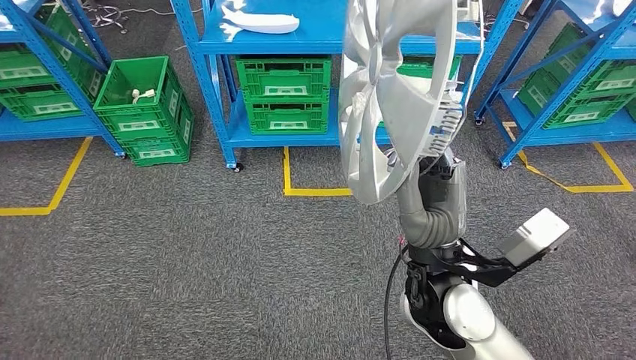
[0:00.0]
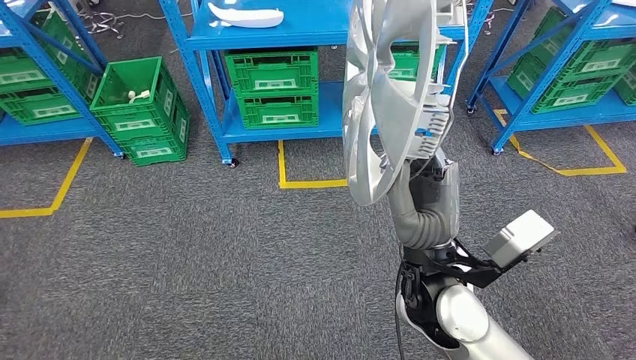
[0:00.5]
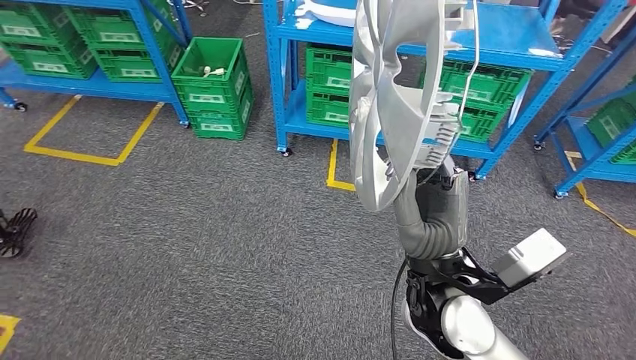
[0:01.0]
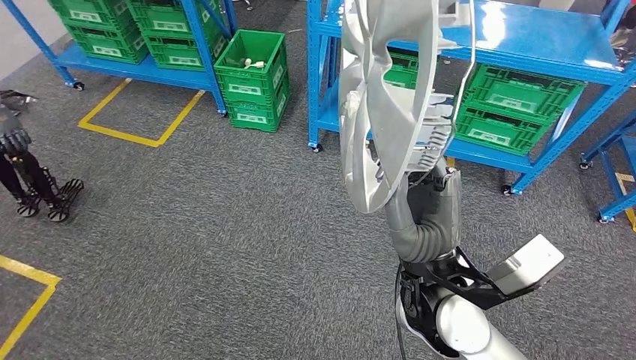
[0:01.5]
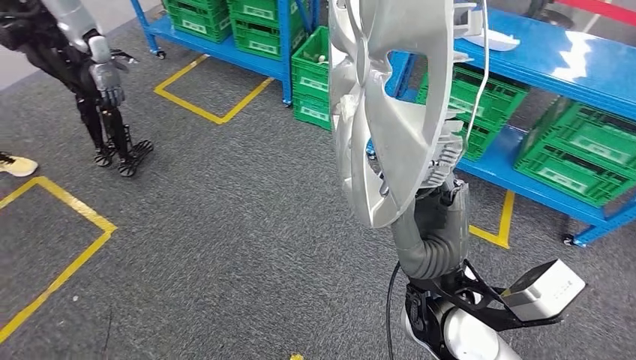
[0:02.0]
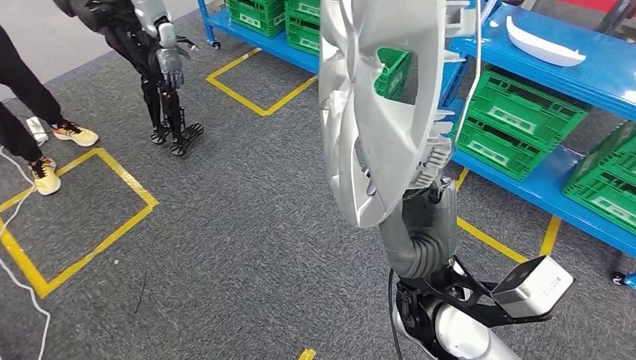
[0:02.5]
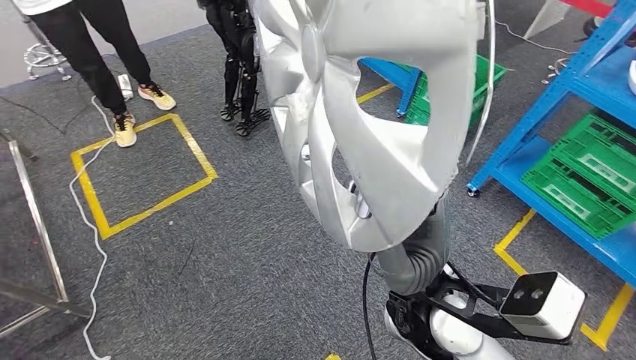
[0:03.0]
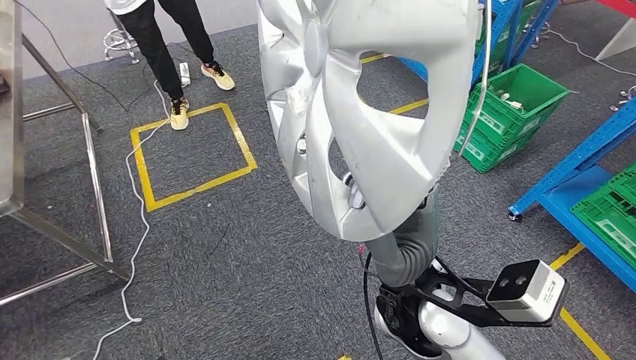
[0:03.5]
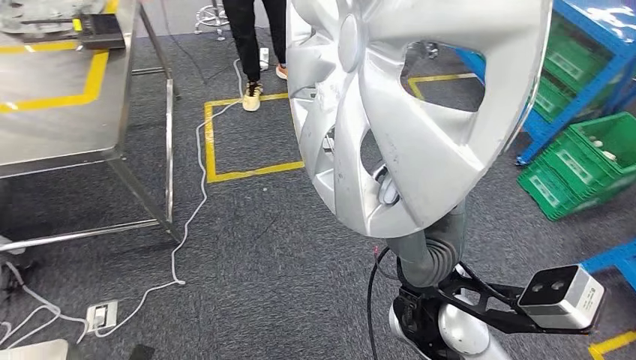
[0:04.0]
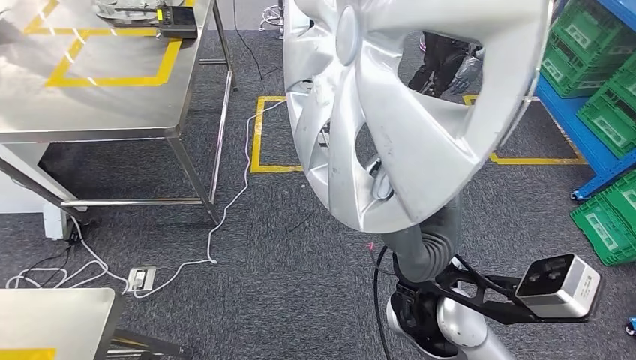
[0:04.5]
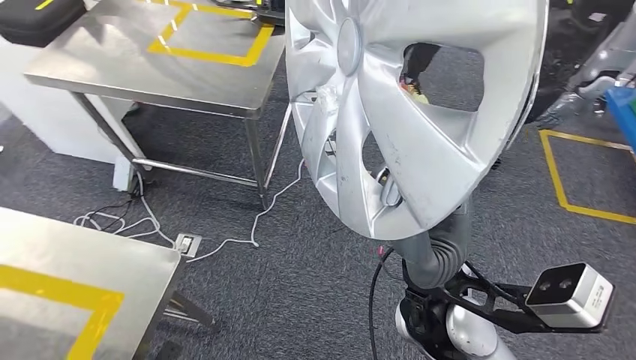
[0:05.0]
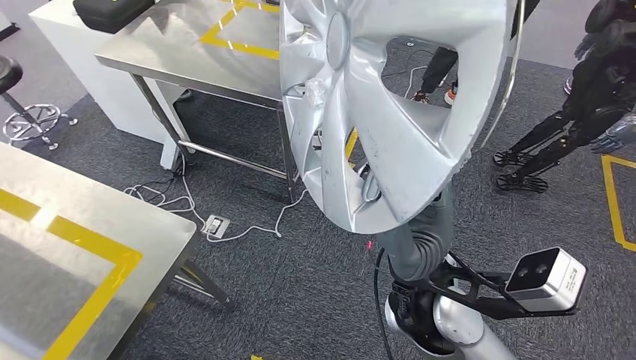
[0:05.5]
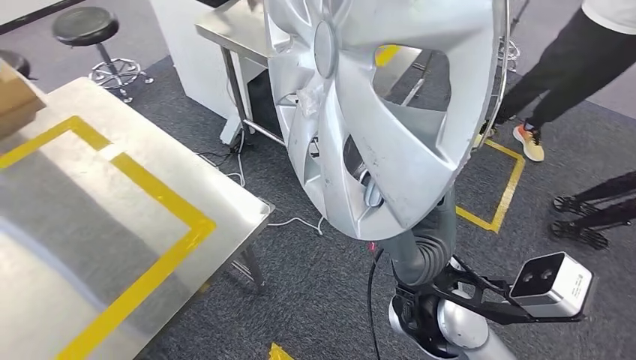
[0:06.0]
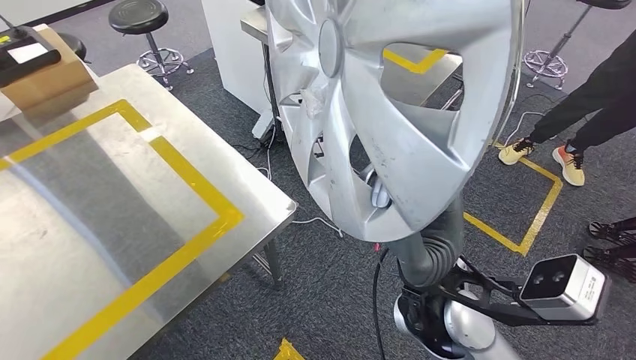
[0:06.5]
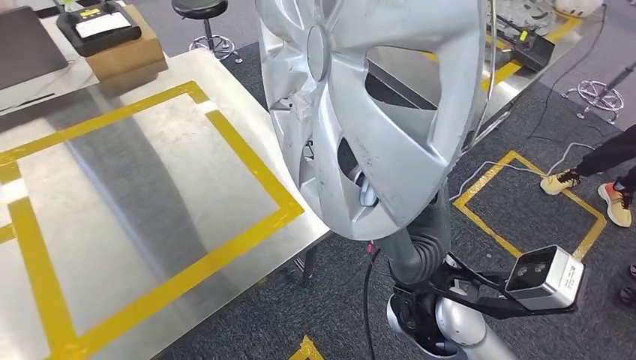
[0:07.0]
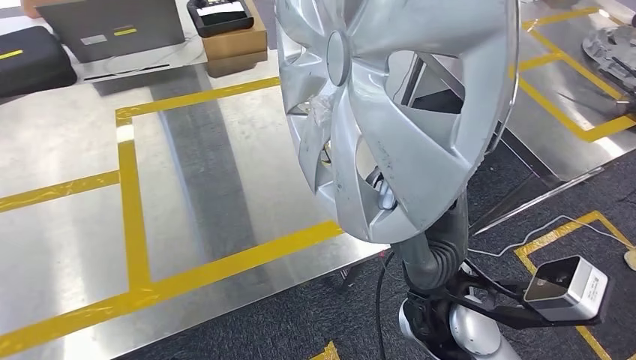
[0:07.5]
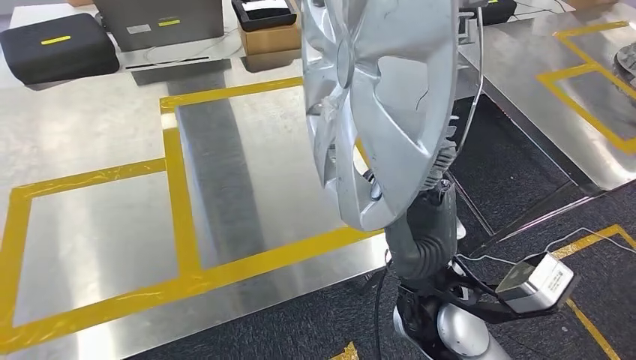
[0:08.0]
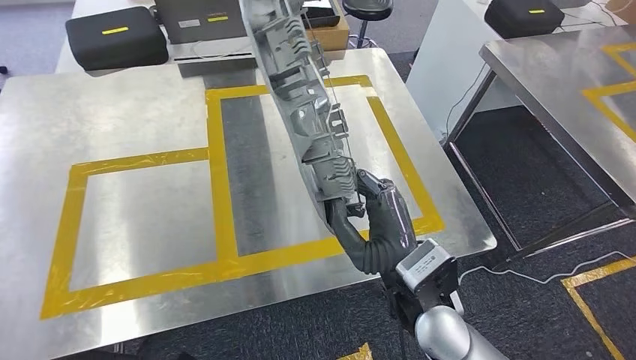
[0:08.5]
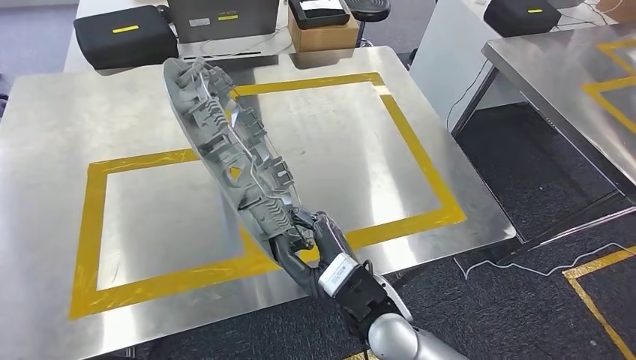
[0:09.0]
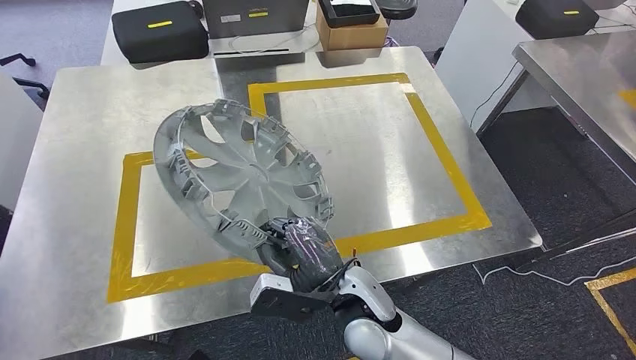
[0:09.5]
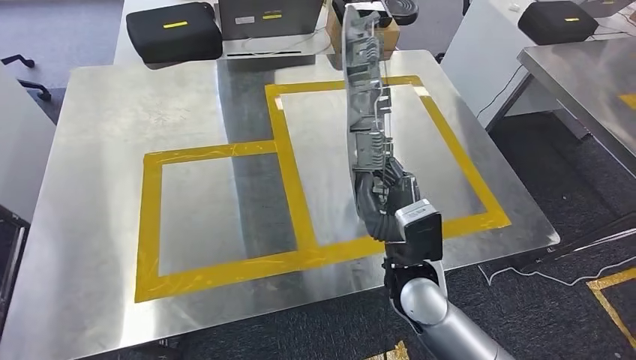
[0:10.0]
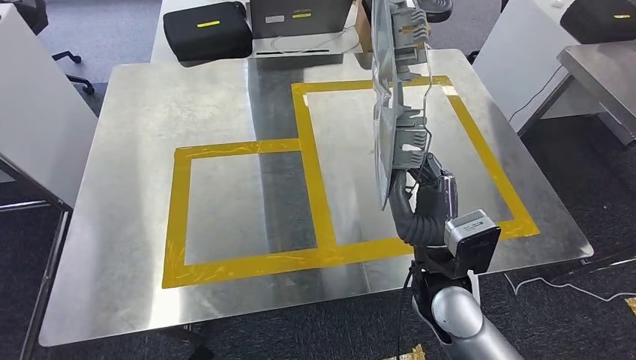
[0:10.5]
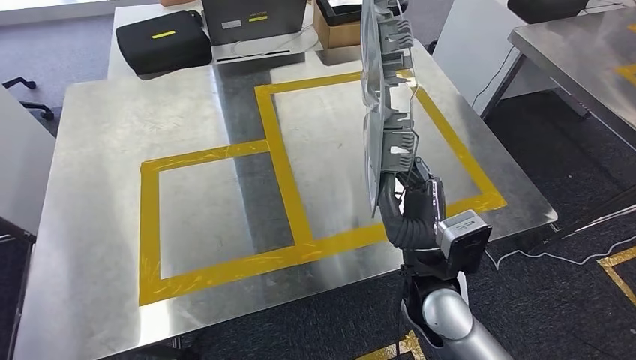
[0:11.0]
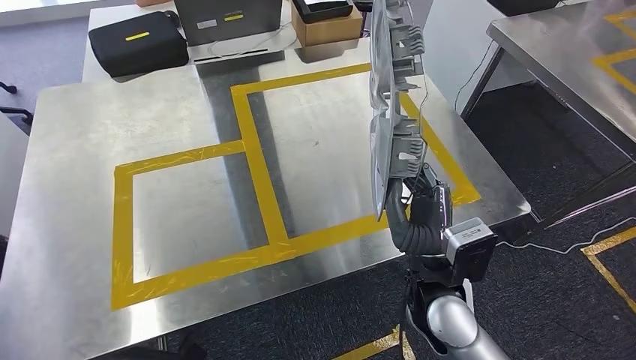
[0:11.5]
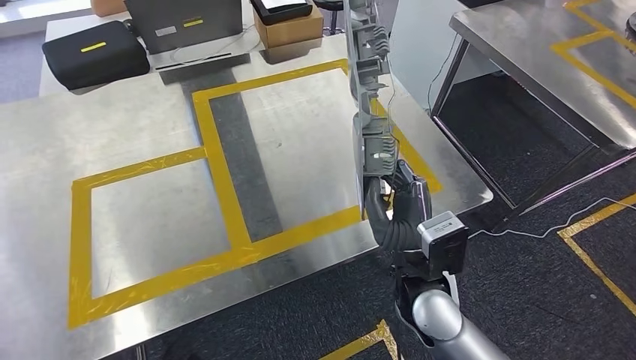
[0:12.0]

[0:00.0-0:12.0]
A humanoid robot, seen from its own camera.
Step, 0:00.0 to 0:02.5: Pick up the small component from the shelf.
Step, 0:03.5 to 0:10.0: Move the small component to the workbench.

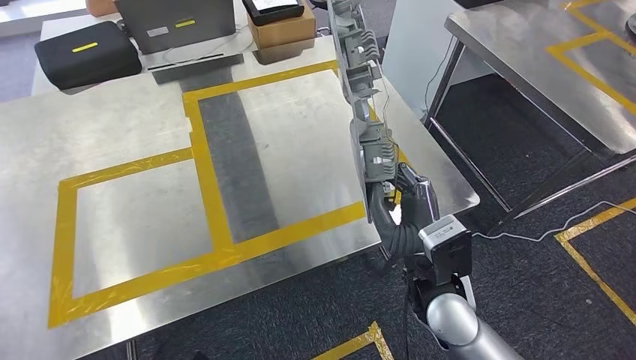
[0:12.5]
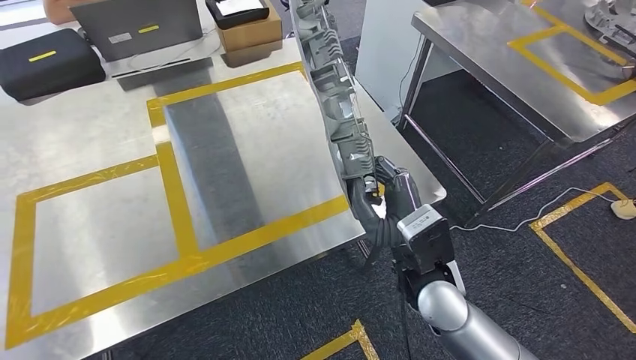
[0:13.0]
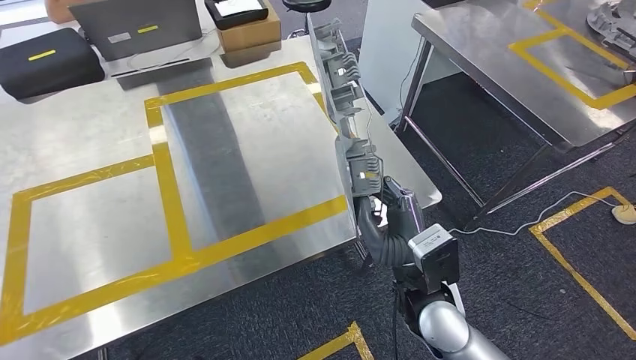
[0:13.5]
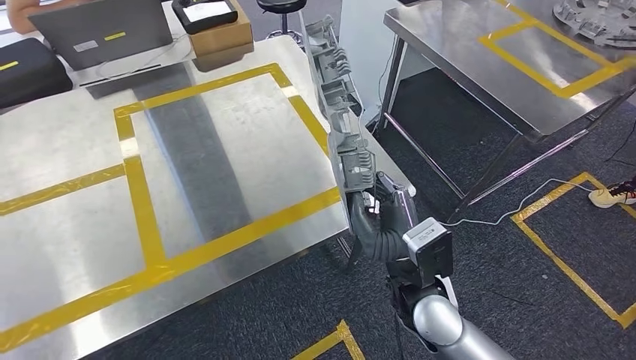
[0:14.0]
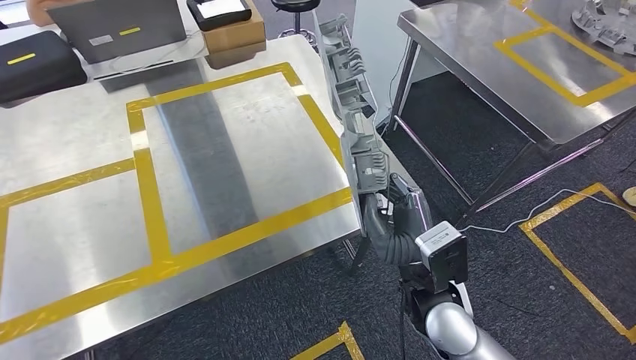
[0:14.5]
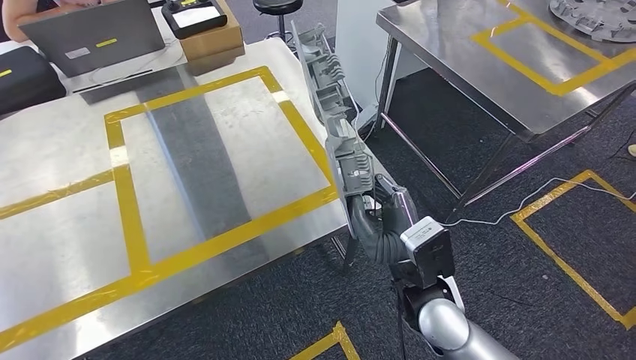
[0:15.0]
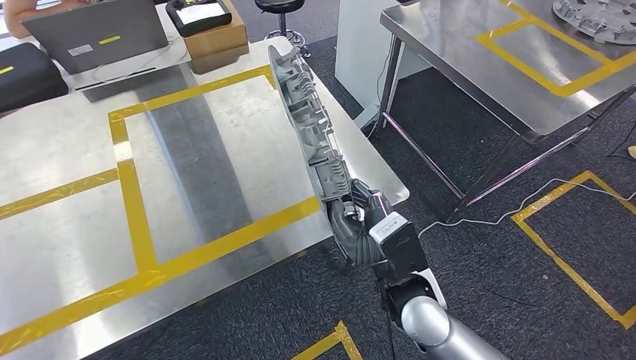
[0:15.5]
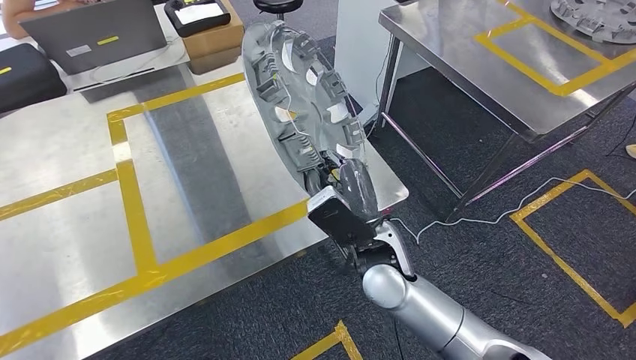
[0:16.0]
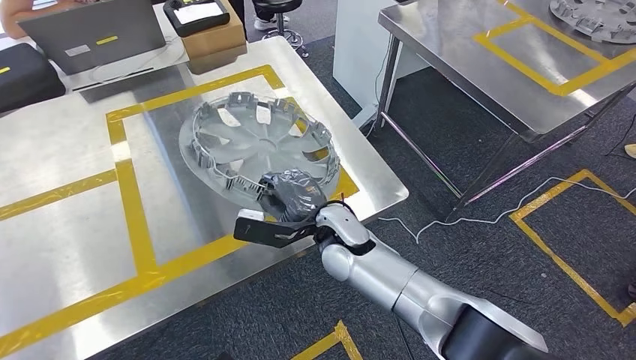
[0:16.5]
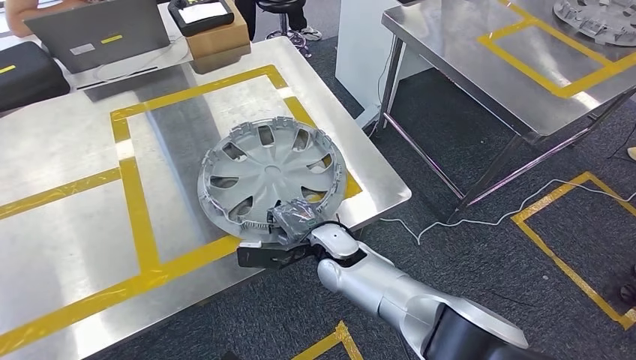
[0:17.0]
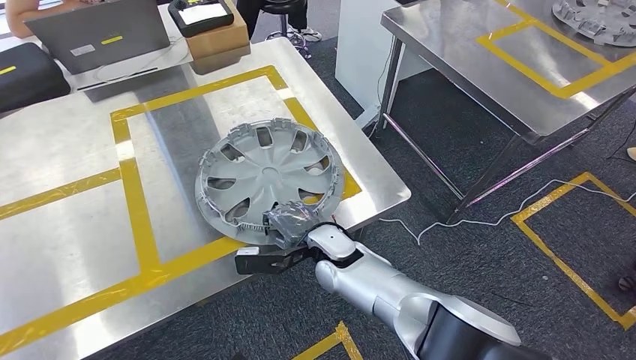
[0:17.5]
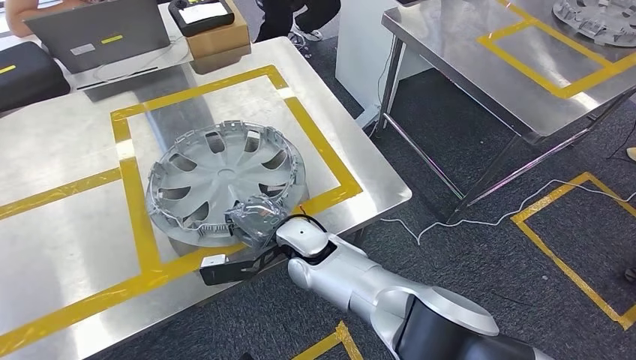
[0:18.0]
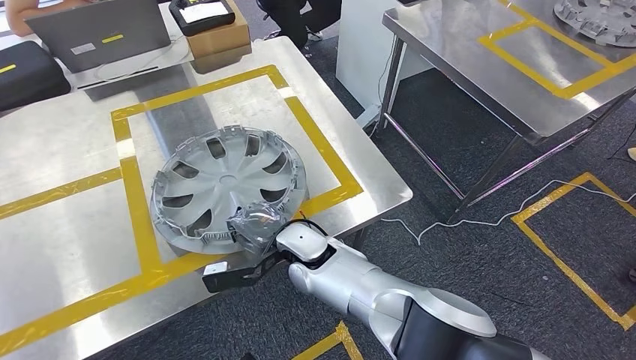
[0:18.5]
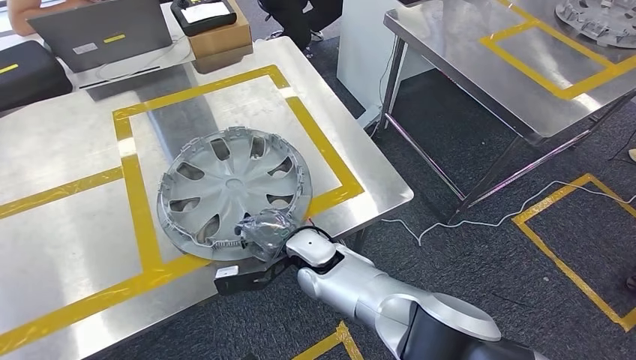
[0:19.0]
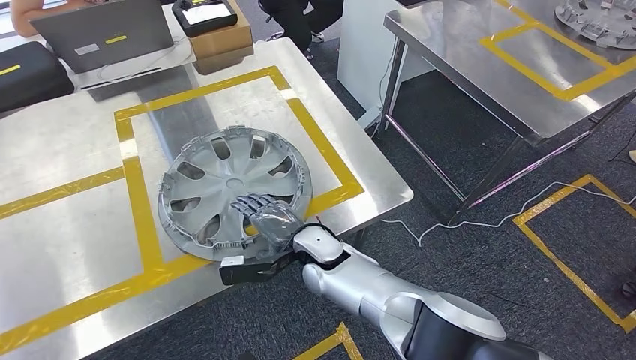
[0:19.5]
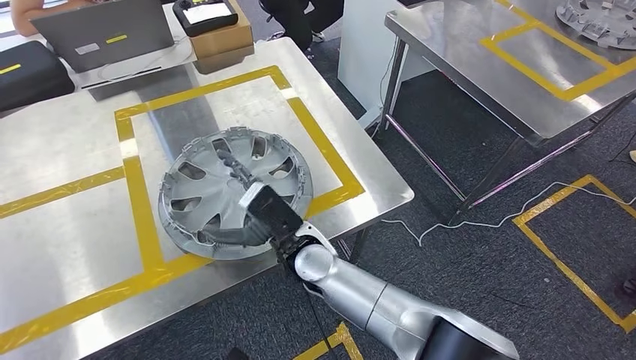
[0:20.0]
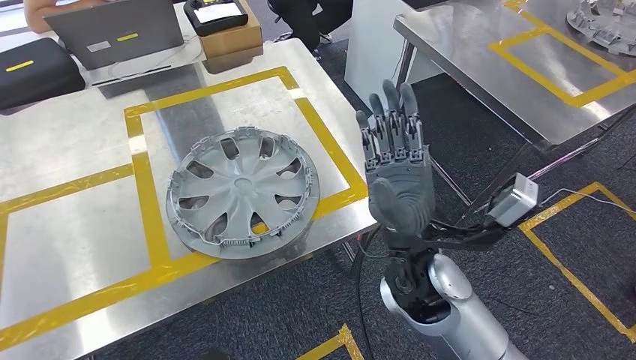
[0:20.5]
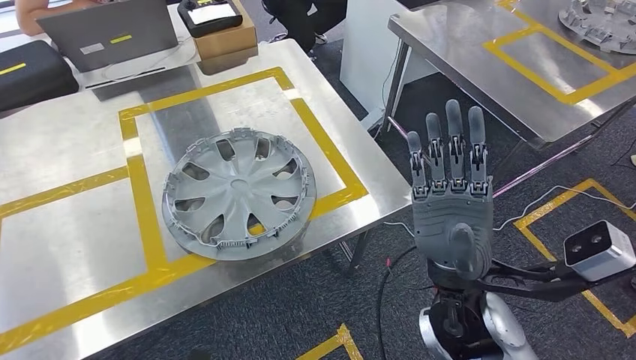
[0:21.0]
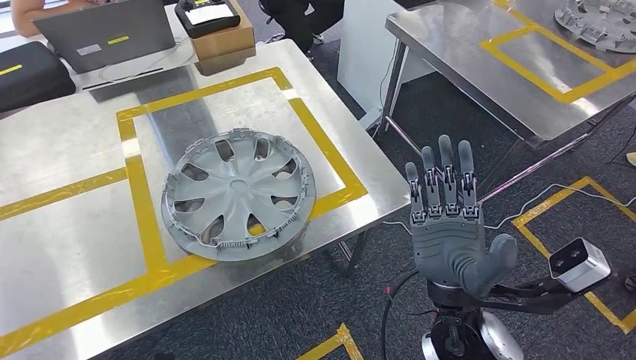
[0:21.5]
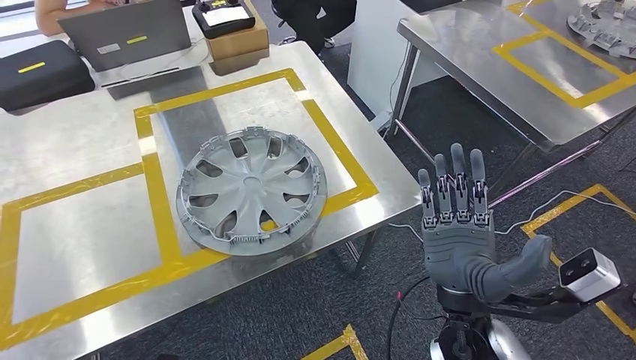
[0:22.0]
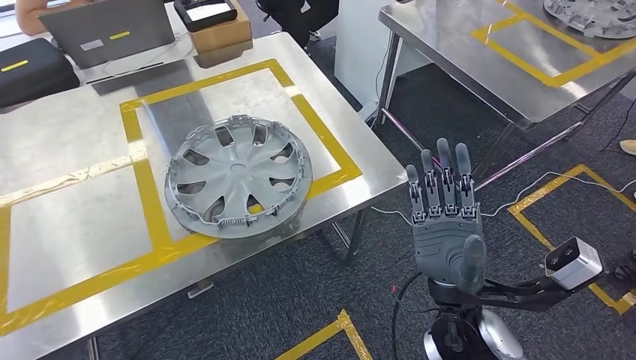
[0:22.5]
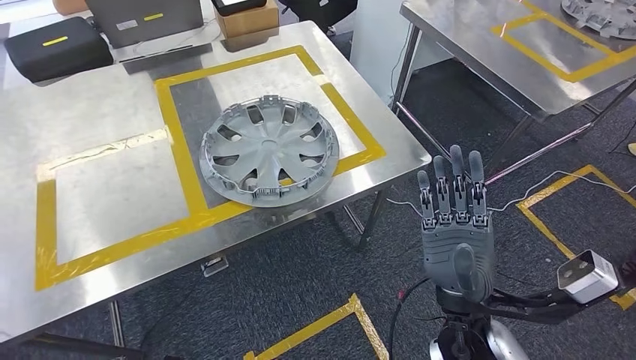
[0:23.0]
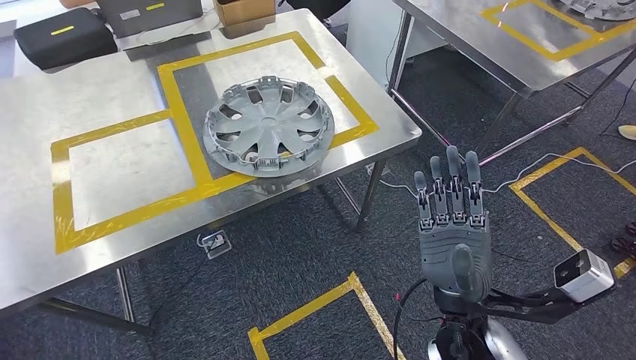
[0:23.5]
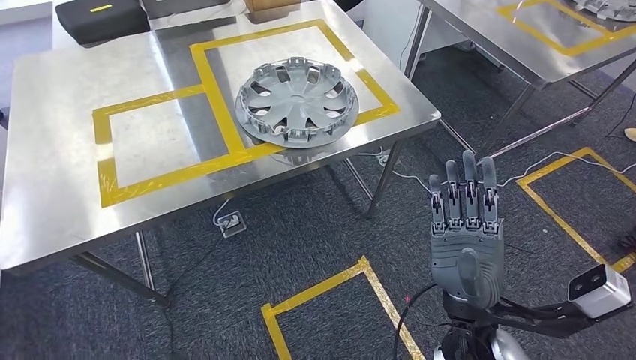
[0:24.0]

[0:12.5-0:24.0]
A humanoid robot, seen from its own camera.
Step, 0:12.5 to 0:18.0: Insert the small component into the corresponding slot on the workbench.
